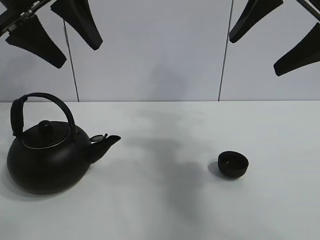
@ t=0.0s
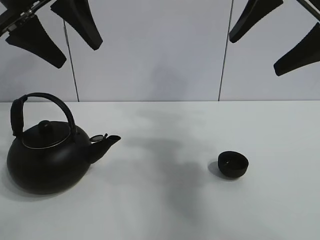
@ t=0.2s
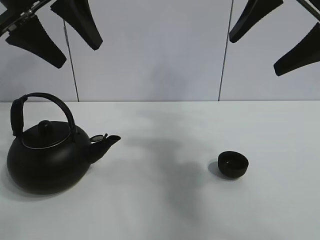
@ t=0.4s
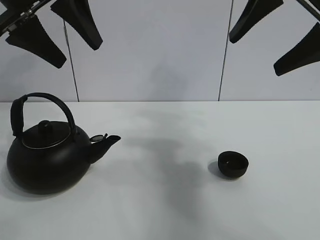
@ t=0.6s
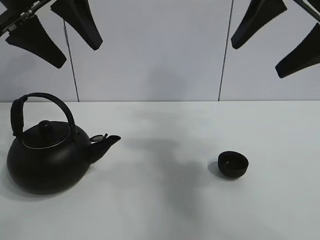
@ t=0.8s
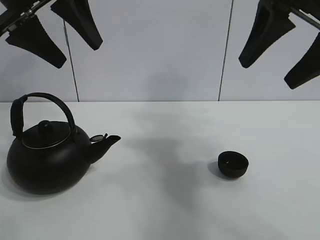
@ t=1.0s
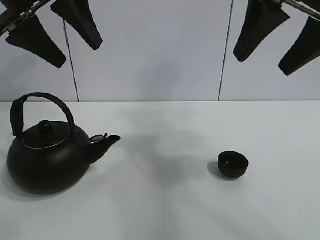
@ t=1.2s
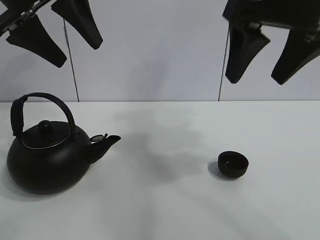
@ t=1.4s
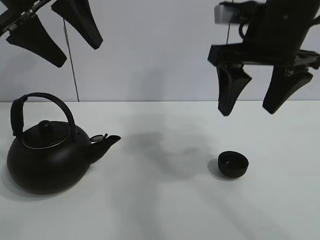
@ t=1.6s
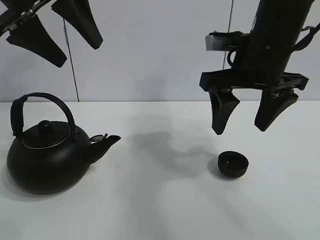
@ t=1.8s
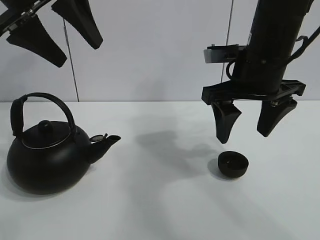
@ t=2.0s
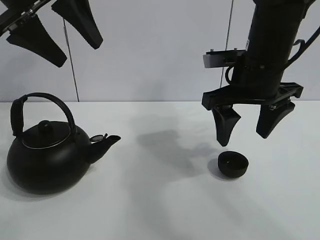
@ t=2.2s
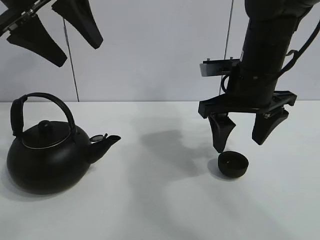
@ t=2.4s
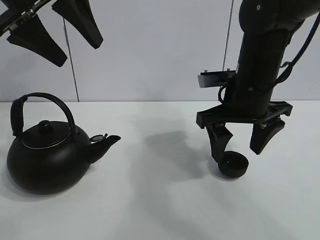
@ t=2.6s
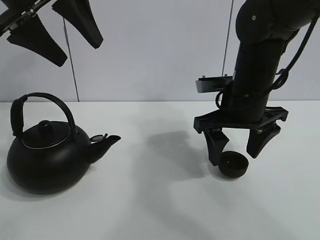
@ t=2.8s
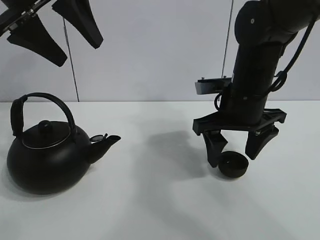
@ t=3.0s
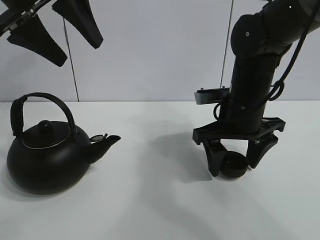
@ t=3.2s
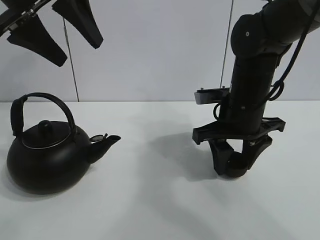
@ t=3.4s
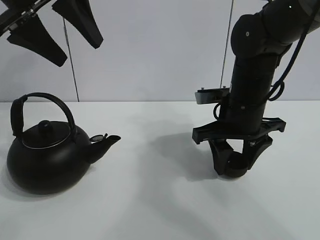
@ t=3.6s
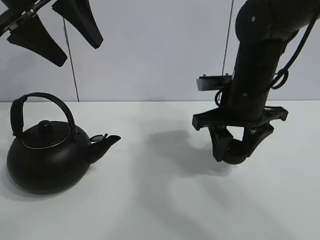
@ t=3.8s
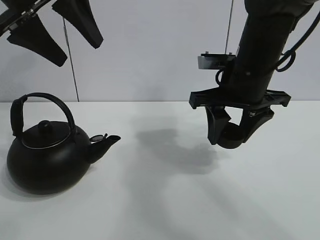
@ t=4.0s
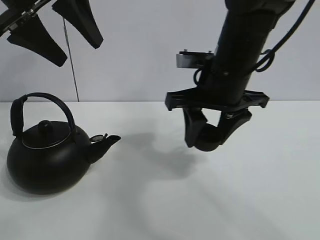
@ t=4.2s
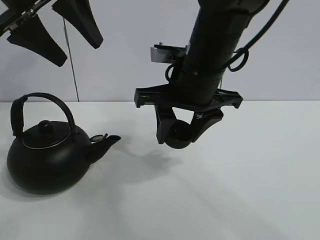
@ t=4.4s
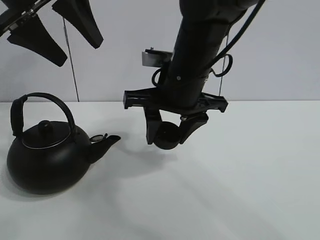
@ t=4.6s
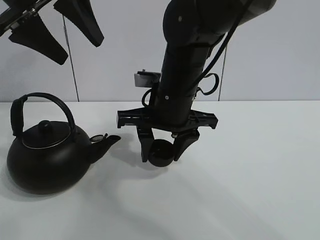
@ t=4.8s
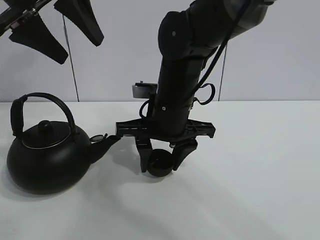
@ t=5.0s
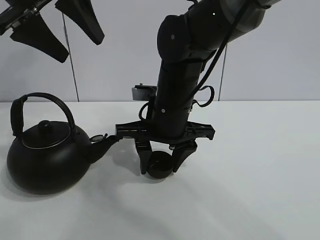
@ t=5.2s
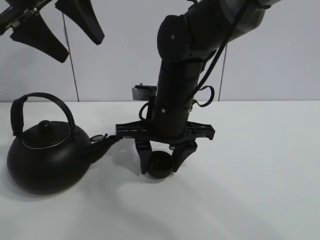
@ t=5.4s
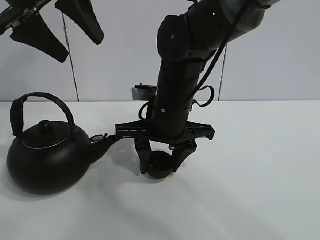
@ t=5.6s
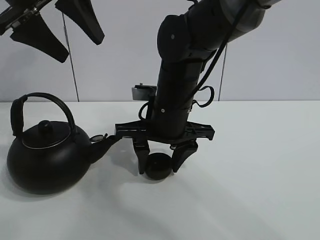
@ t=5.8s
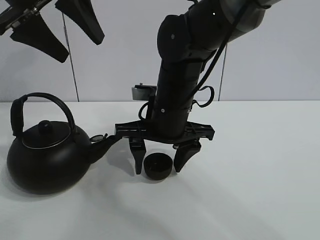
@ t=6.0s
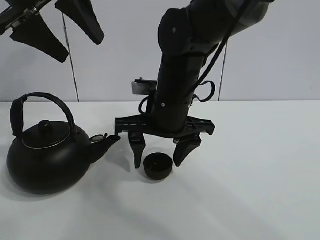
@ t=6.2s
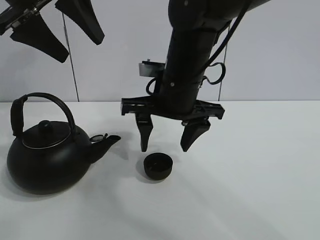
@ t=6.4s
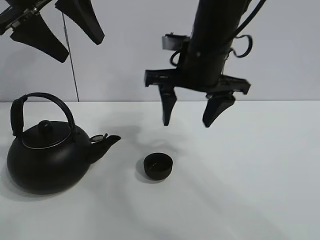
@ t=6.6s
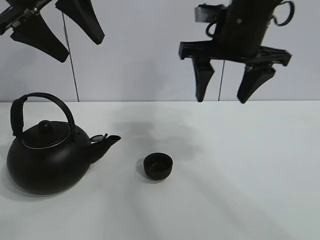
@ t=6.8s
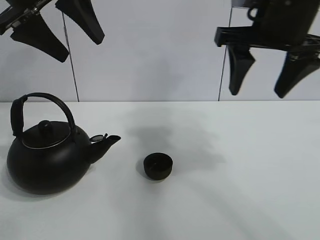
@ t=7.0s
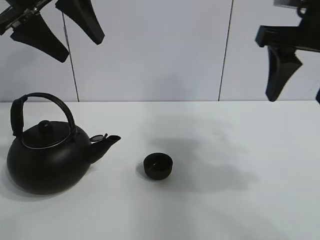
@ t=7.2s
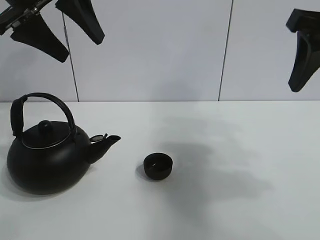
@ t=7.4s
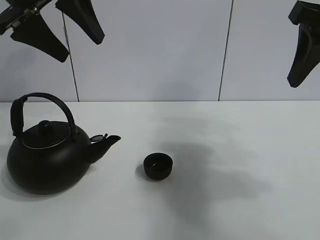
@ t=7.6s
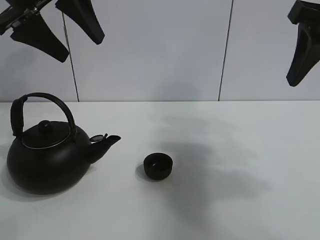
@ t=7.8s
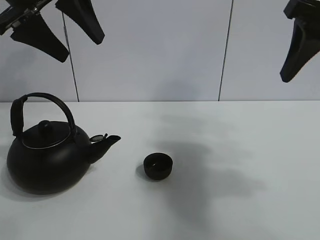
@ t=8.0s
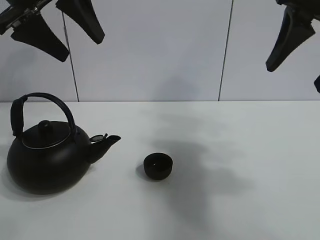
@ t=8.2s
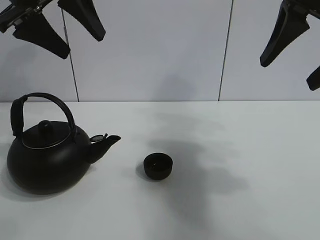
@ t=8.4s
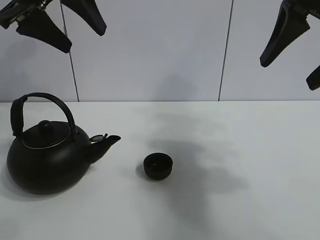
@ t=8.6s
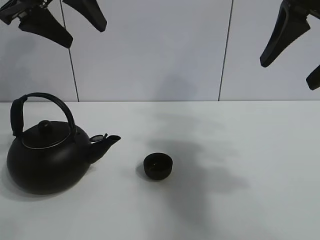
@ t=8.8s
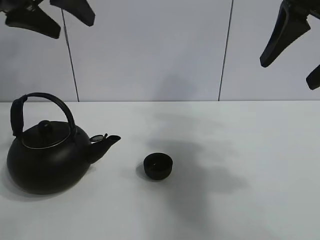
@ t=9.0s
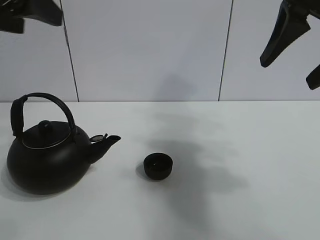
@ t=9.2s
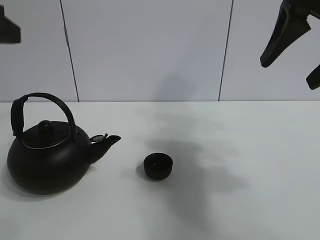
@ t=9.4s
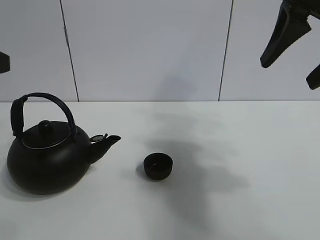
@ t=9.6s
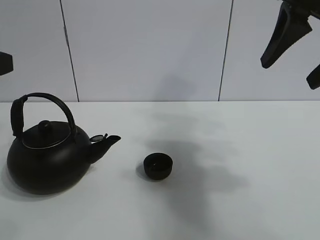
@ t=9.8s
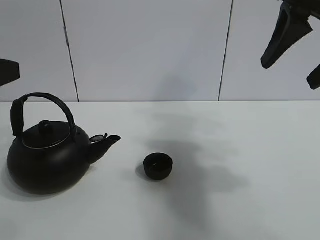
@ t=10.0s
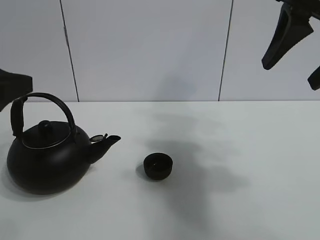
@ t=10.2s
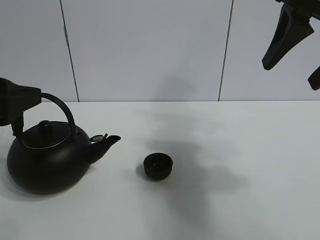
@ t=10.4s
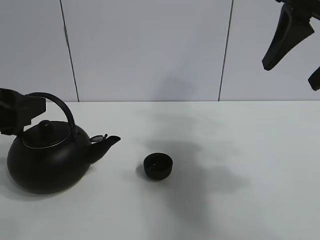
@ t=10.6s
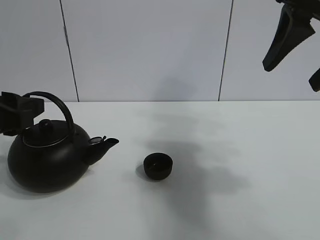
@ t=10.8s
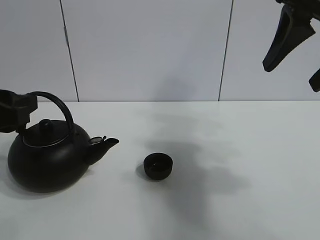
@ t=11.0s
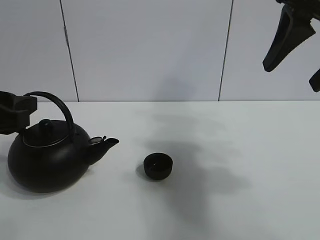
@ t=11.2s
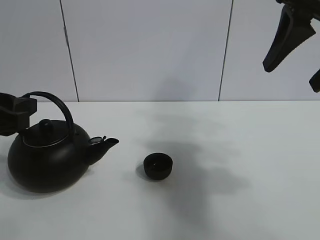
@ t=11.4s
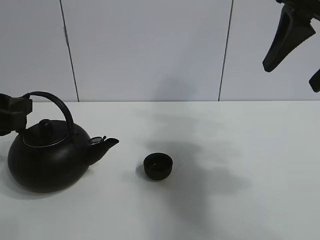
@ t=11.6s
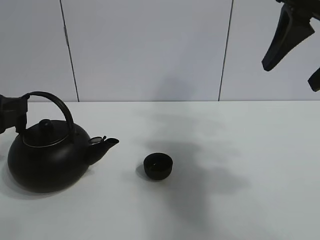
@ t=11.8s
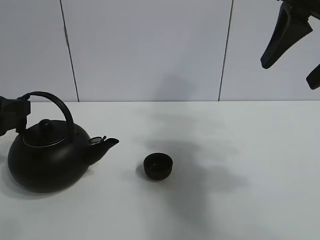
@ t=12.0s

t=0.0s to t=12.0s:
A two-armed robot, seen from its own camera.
Task of the whole recording: pour tea into the teacup.
Step, t=0.0s to t=3.6s: Pick up the teacup with the right gripper.
Step, t=3.8s to t=6.2s: Place the teacup in the center of view with the right gripper.
t=1.6s to t=3.0s: The right gripper shifts roughly 10 cm downward.
t=3.0s to t=4.4s: The right gripper moves to the left and upward, approximately 10 cm, and closes its fingers.
t=4.4s to t=6.0s: The right gripper heads downward, covering some 5 cm, and opens.
t=6.0s to t=7.6s: The right gripper is displaced to the right, upward and backward by approximately 30 cm.
t=7.6s to t=9.0s: The grippers stay close to where they were, moving slightly.
t=9.0s to t=10.4s: The left gripper heads downward, backward and to the left, covering roughly 20 cm.
t=10.4s to t=12.0s: There are only small adjustments of the grippers.

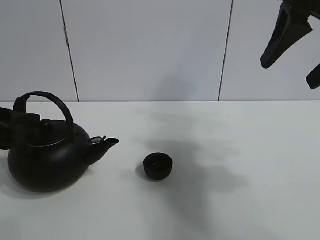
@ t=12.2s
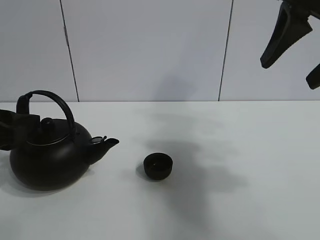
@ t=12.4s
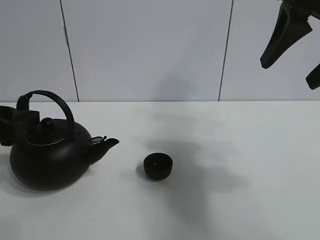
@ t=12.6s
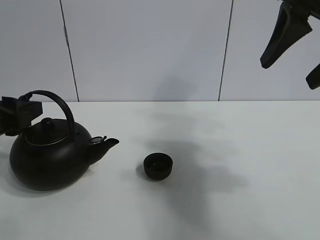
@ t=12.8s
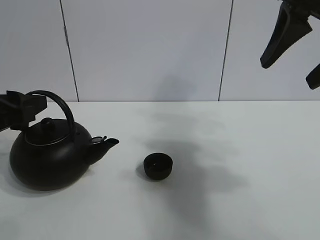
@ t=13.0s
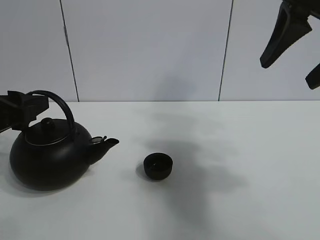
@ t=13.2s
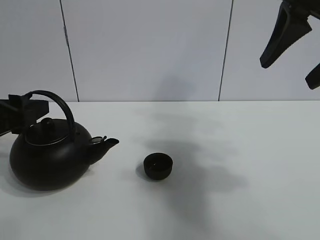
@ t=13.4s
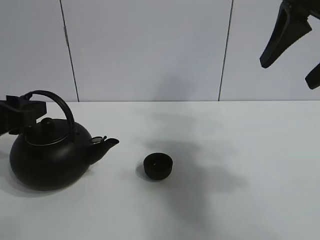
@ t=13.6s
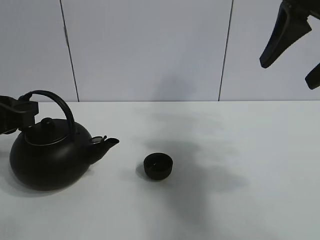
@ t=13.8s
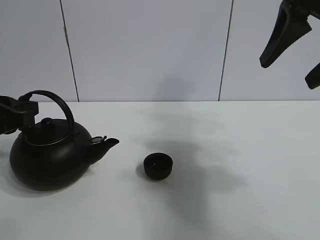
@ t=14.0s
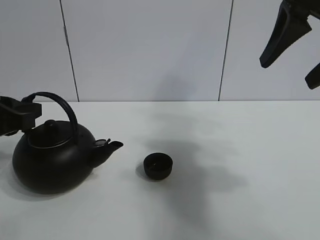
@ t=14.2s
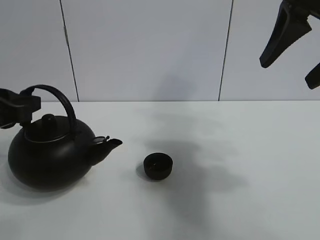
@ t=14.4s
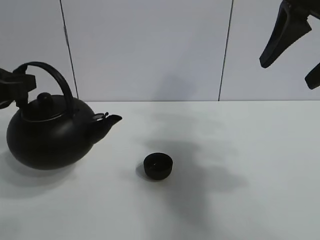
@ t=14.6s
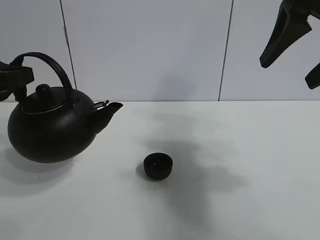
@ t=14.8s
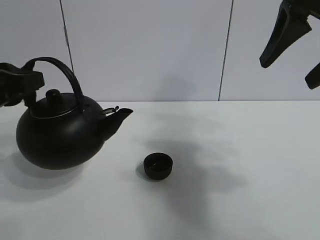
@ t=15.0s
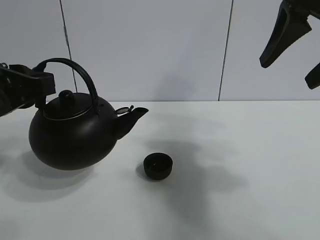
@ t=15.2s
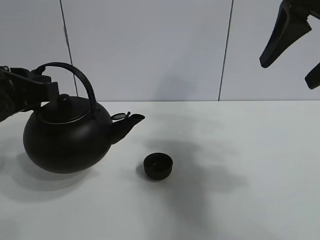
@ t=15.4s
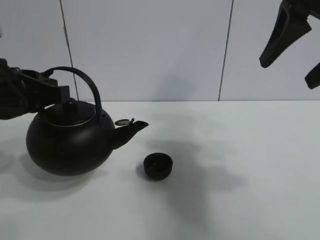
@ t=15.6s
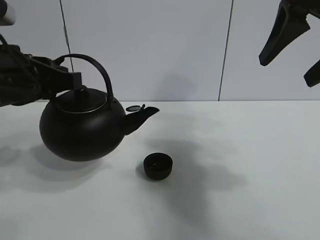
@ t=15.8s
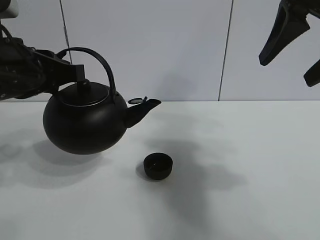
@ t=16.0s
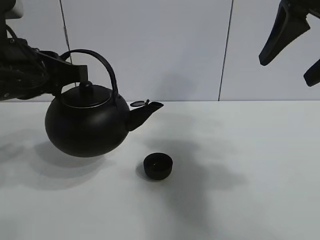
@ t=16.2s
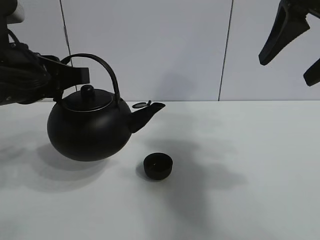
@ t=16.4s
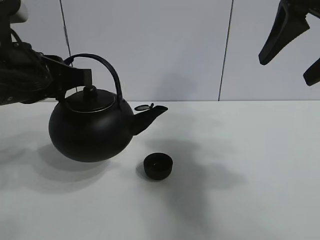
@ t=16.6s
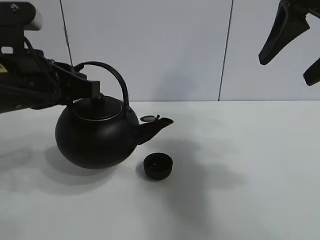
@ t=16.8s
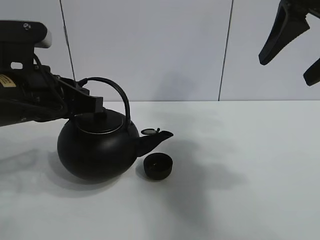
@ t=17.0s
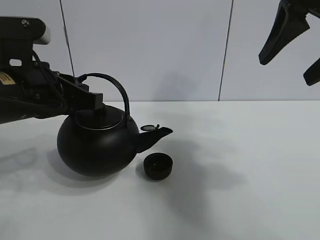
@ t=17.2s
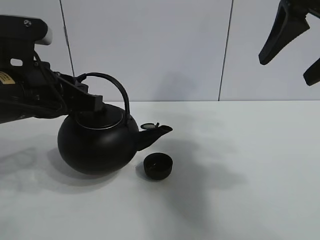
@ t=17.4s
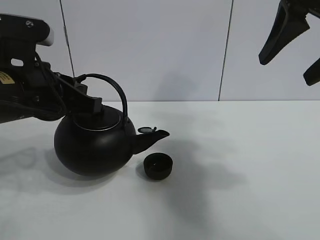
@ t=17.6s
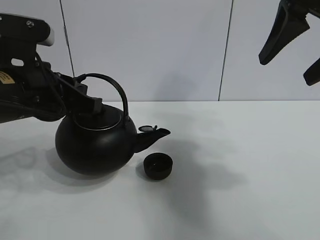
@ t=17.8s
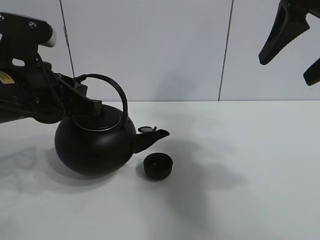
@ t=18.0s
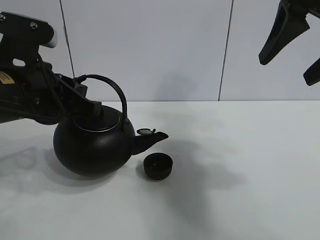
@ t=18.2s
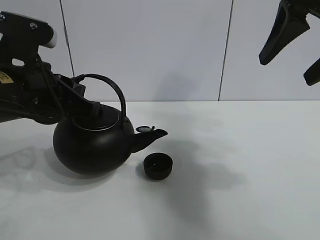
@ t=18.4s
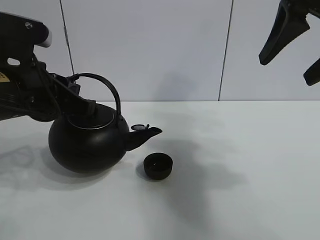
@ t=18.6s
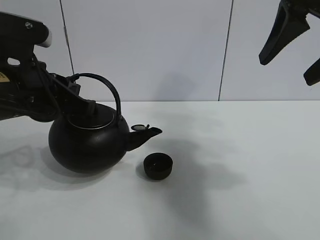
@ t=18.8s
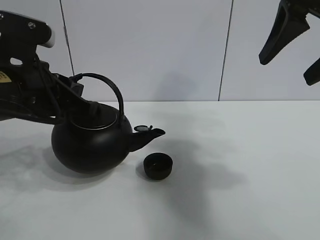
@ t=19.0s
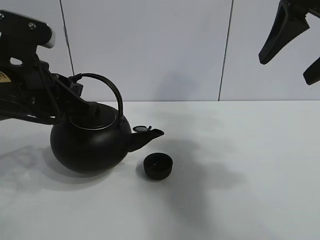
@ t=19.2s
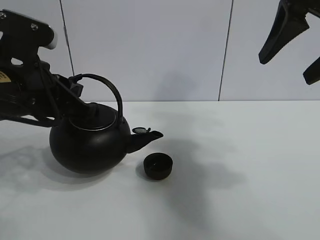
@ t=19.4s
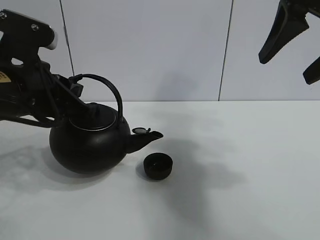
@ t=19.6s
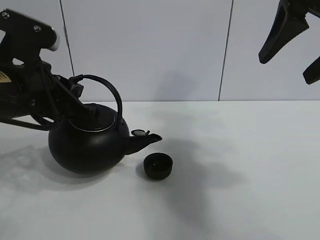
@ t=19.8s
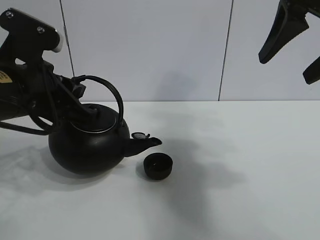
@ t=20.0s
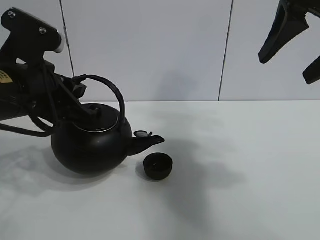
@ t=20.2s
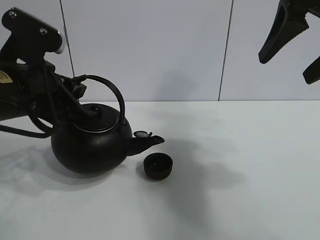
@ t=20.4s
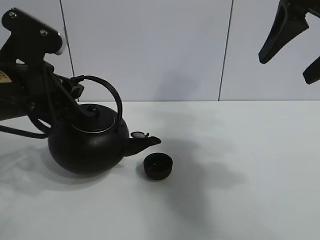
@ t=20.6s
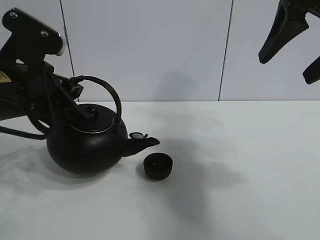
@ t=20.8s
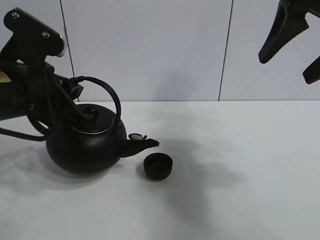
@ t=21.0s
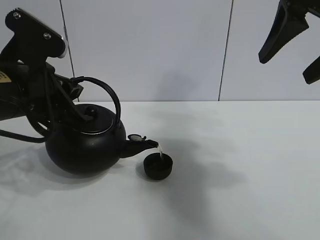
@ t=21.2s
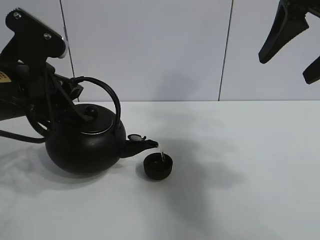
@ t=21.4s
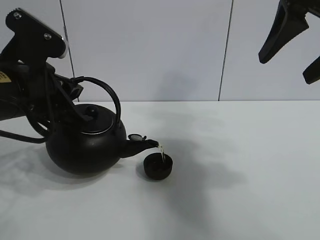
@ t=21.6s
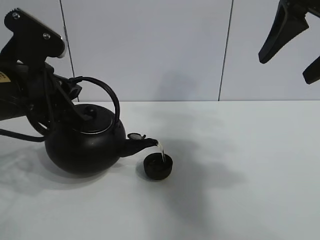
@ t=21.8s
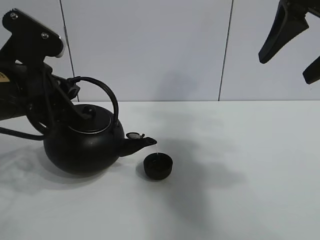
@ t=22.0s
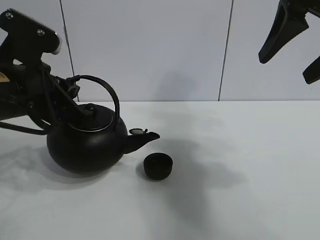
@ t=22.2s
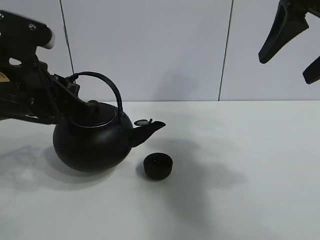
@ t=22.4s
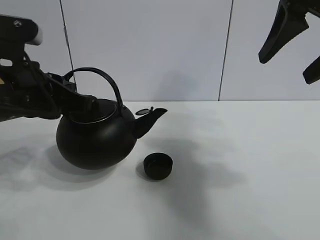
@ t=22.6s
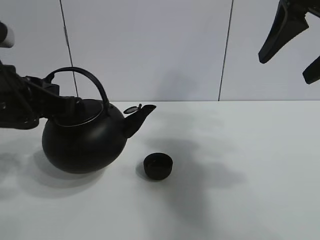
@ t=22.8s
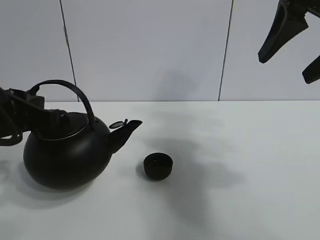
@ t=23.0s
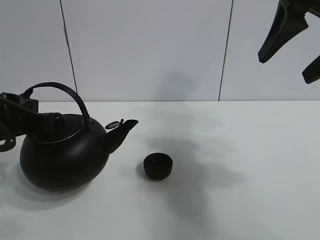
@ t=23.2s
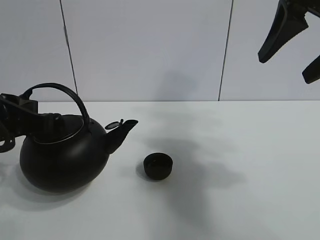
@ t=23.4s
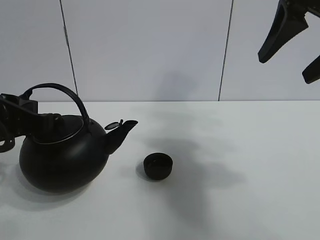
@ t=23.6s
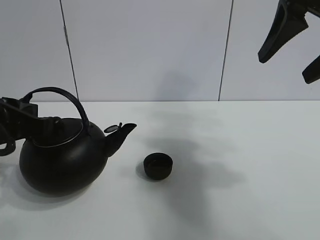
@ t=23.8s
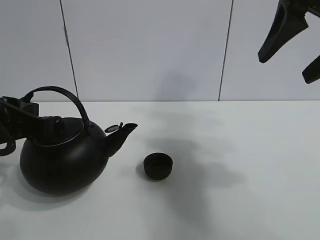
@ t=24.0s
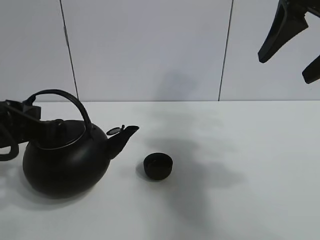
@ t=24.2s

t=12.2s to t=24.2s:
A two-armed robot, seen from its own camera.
Task of the whole recording: pour tea into the teacup.
Step, t=12.2s to t=14.6s: Pick up the teapot with the left gripper.
Step, t=14.8s to t=22.0s: Pour tea into the teacup with the left gripper.
t=12.2s to t=13.8s: The left gripper closes.
t=13.8s to t=15.2s: The left gripper ends up approximately 5 cm from where it was.
t=15.2s to t=16.6s: The grippers make only small movements.
t=16.6s to t=18.2s: The grippers stay close to where they were, moving slightly.
t=18.2s to t=21.2s: The grippers move only a little.
t=22.6s to t=24.2s: The left gripper shifts by about 5 cm.
